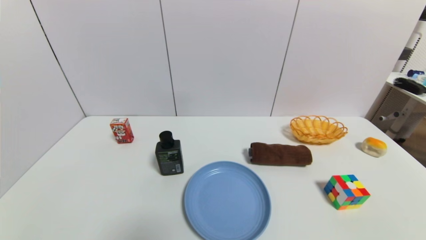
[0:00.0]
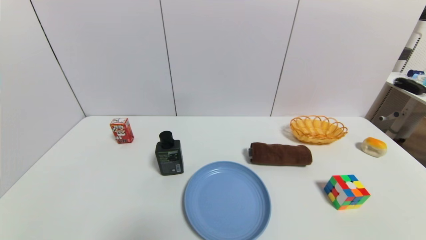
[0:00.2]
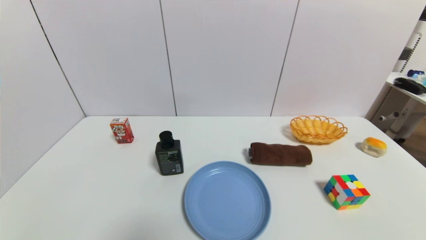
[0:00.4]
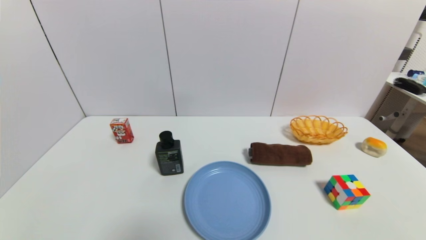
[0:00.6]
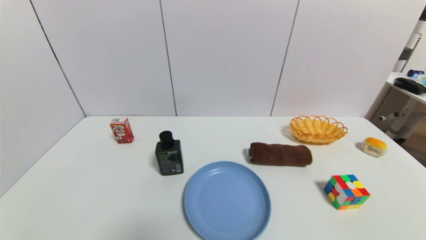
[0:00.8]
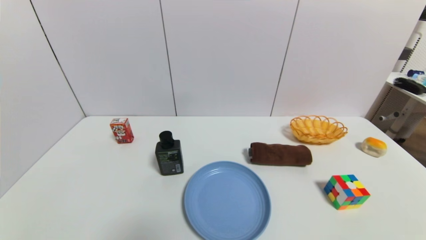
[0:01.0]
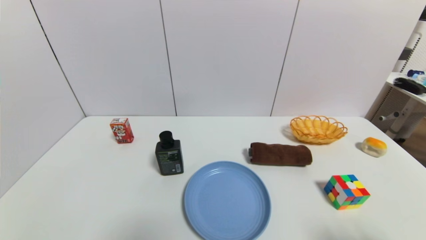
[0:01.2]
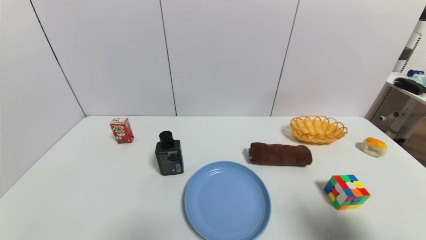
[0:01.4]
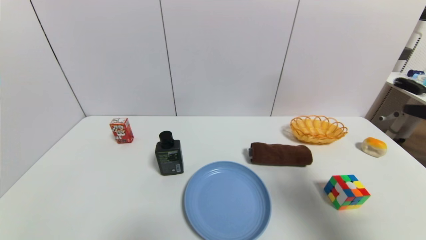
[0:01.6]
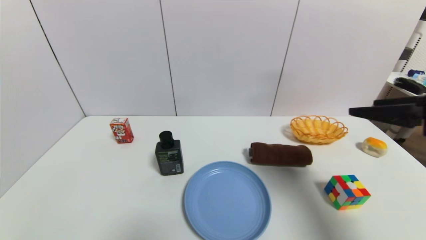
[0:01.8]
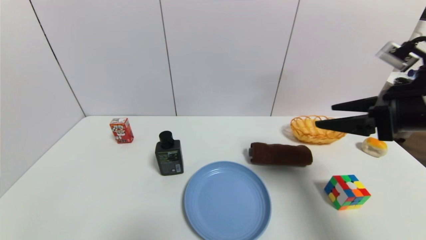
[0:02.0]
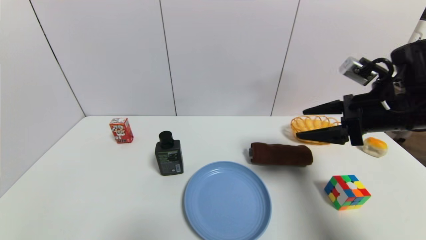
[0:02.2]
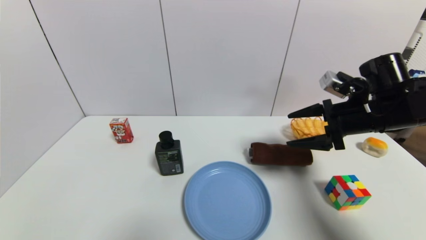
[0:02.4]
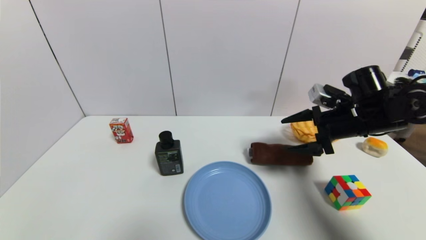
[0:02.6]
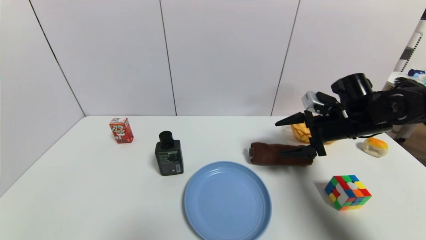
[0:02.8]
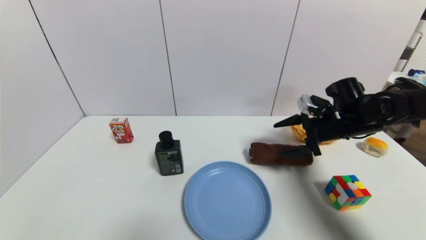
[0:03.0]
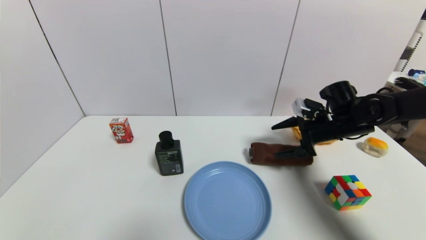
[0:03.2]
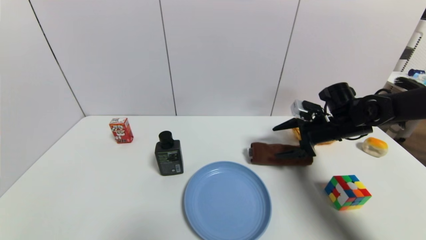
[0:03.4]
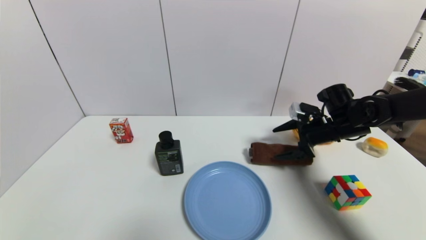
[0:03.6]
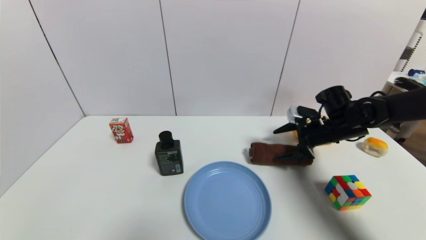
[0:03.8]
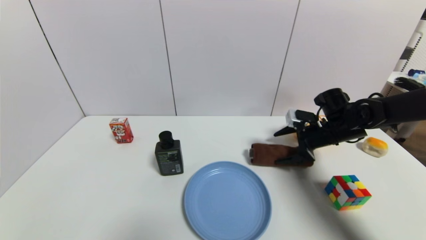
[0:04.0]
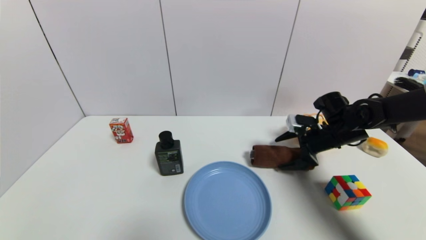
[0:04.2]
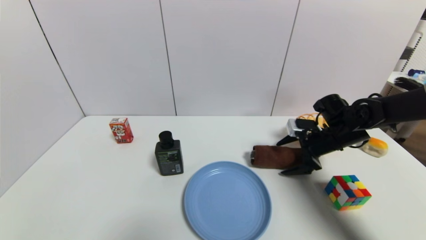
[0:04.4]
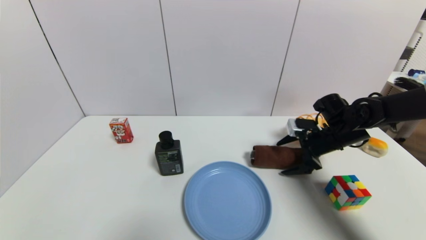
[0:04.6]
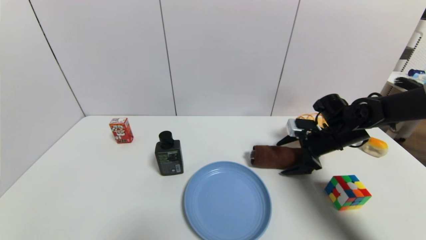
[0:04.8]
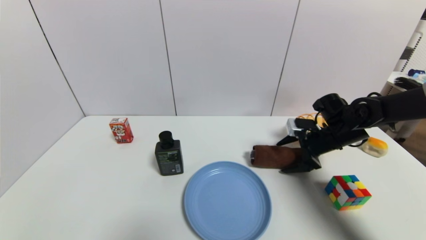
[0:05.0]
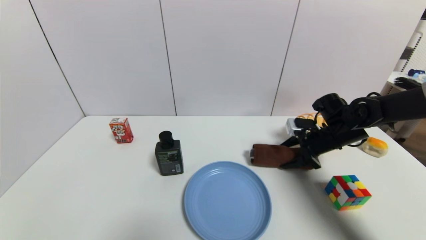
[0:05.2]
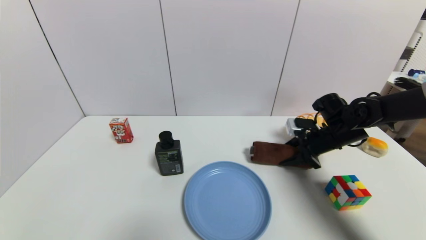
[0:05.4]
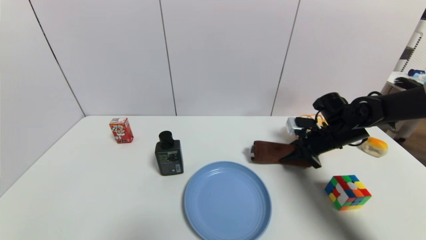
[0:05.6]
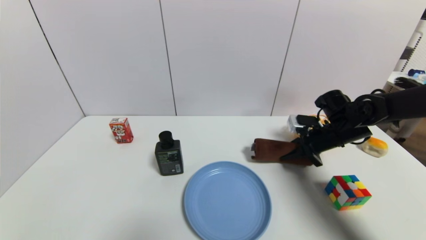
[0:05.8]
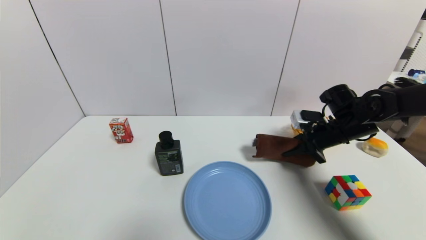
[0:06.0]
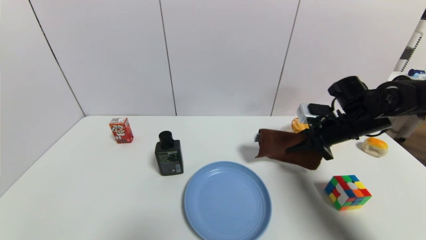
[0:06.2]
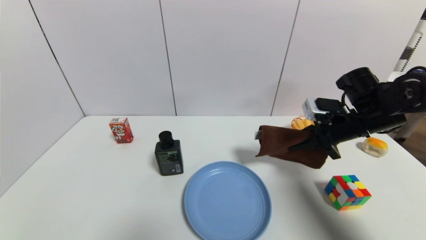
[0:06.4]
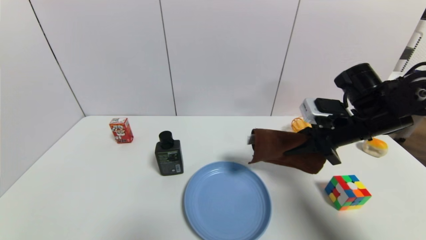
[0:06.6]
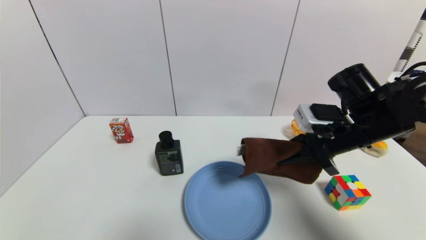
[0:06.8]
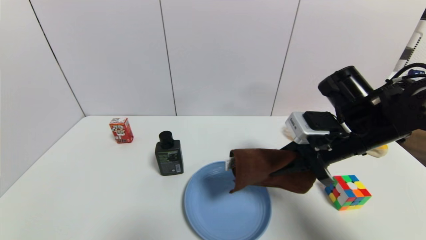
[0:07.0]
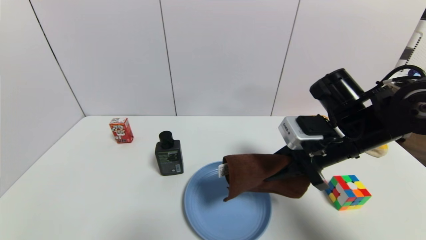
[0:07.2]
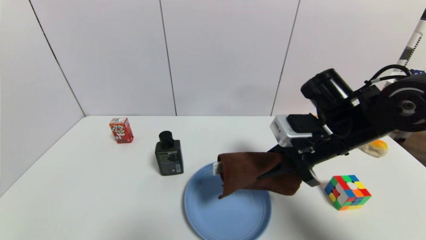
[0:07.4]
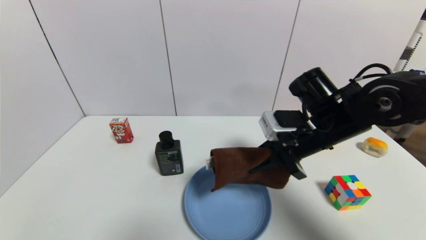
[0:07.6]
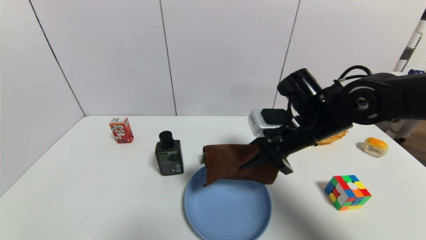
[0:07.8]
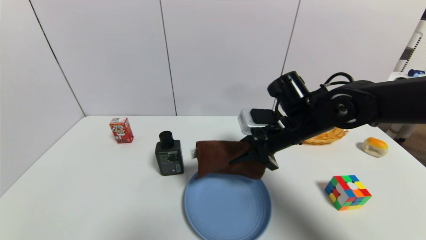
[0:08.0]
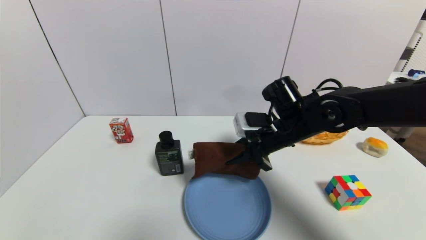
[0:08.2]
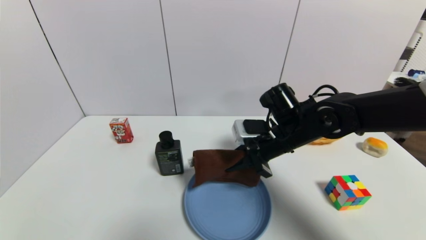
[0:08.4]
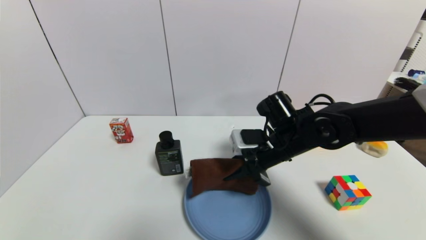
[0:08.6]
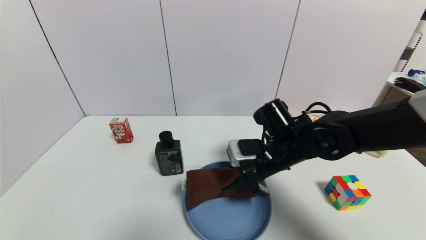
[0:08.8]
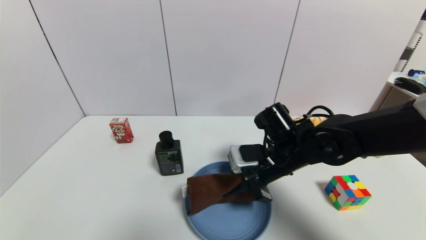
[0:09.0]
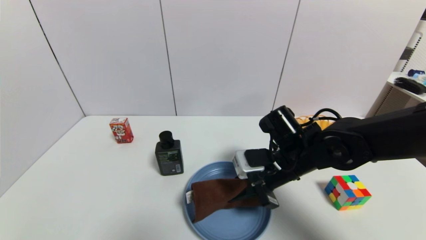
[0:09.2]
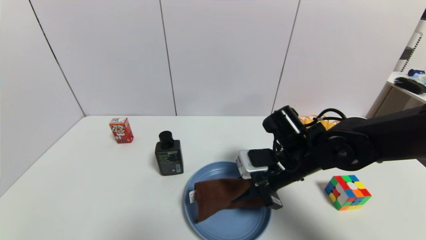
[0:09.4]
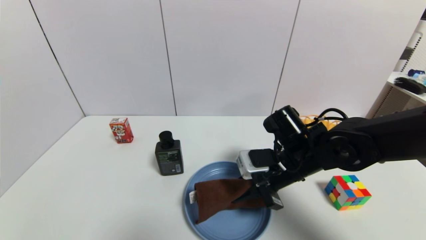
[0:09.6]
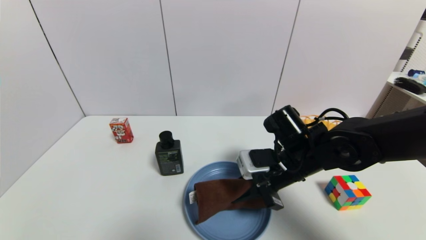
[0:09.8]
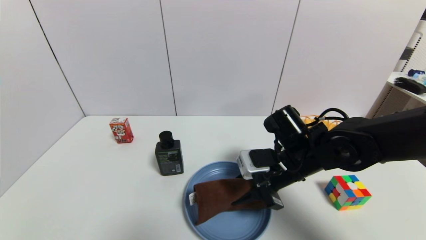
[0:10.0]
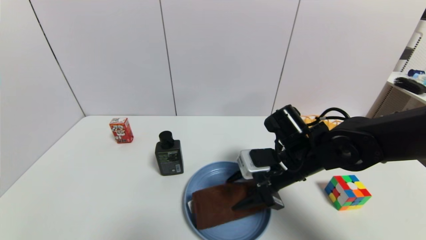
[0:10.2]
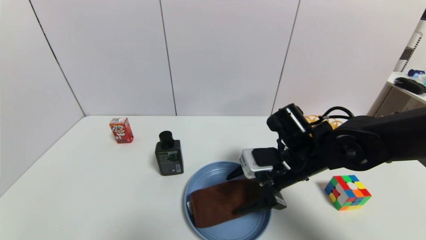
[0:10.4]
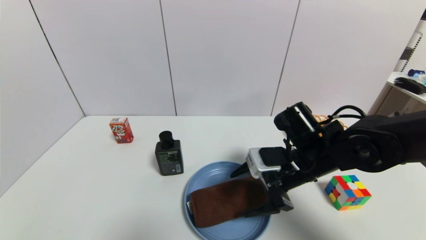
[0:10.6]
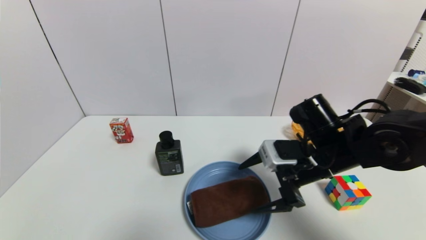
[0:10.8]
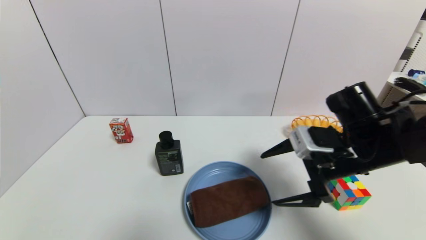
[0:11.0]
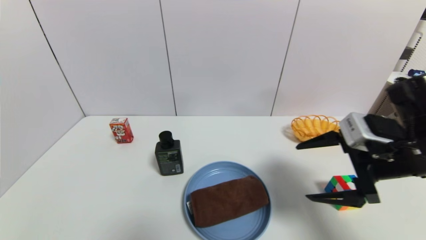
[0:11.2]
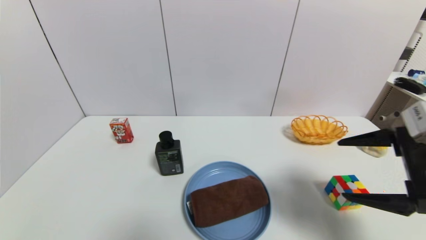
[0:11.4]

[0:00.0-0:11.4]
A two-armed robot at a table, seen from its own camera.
Task of the whole recording: use a gripper to pick the target object and place on the blue plate.
Step, 0:00.0 to 0:05.6: Grasp the brown towel with the right gripper.
Step, 0:05.8 to 0:11.2: Place the brown towel on the blue plate with the right gripper.
0:00.0 to 0:01.4: The right gripper moves upward, some 20 cm.
0:01.4 to 0:02.8: The right gripper moves forward, approximately 30 cm.
0:02.8 to 0:04.2: The right gripper goes some 5 cm downward.
0:04.2 to 0:05.6: The right gripper closes.
0:05.6 to 0:07.2: The right gripper moves backward, to the left and upward, approximately 15 cm.
0:07.2 to 0:08.6: The right gripper goes approximately 10 cm to the left, downward and forward.
0:08.6 to 0:10.0: There are only small adjustments of the grippers.
0:10.0 to 0:11.4: The right gripper moves to the right, backward and upward, roughly 20 cm, and opens up.

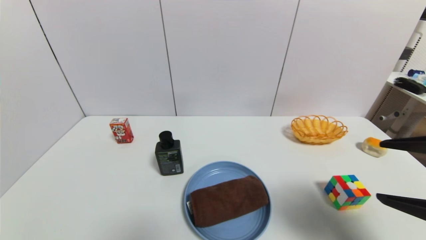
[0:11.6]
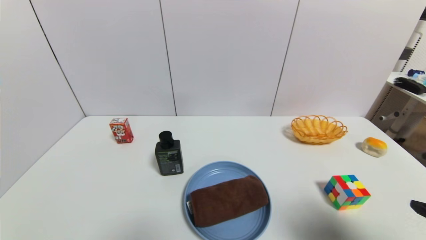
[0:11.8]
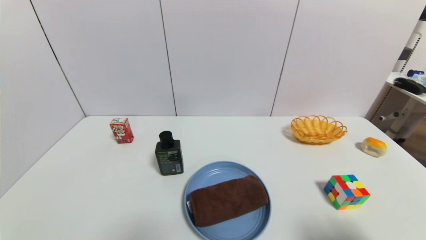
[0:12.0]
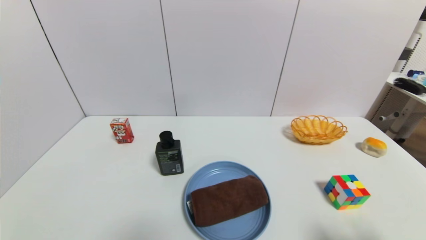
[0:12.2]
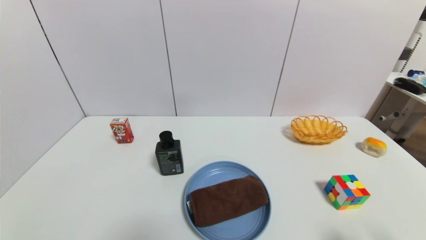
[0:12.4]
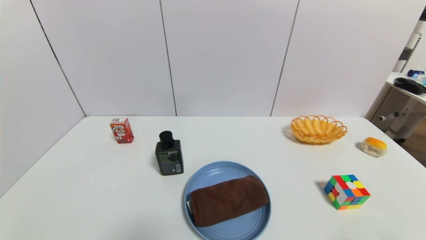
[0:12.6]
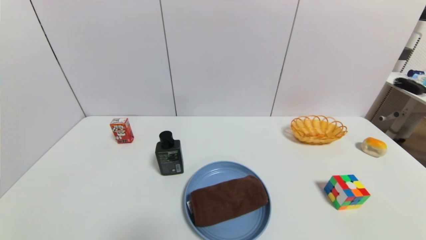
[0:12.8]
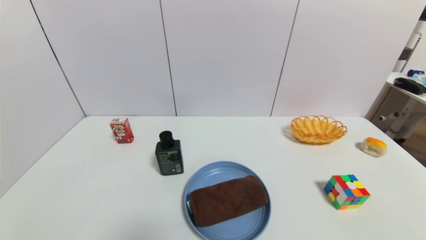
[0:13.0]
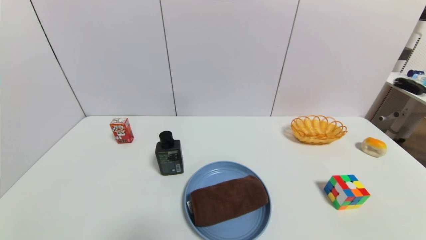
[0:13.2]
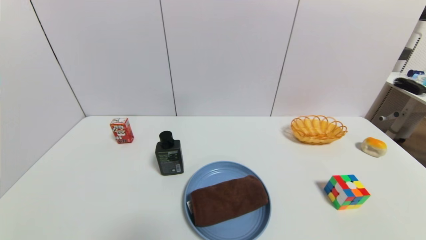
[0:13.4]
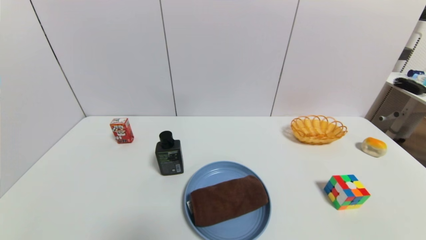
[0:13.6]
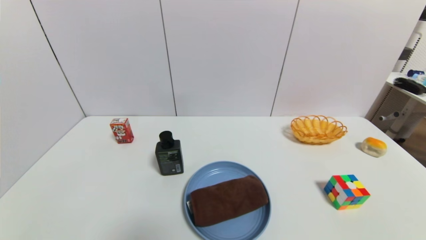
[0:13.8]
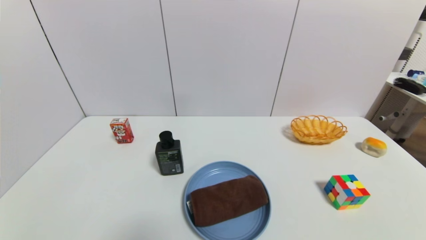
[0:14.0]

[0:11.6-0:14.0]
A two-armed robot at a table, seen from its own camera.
Task of the whole recording: use a gripper to pick the target object and place on the blue plate.
0:11.6 to 0:12.8: The right gripper moves backward and downward, some 20 cm.
